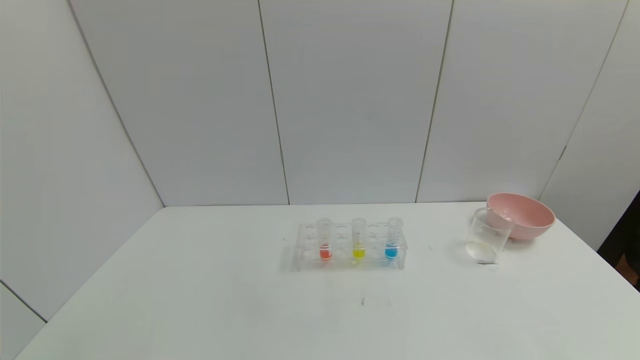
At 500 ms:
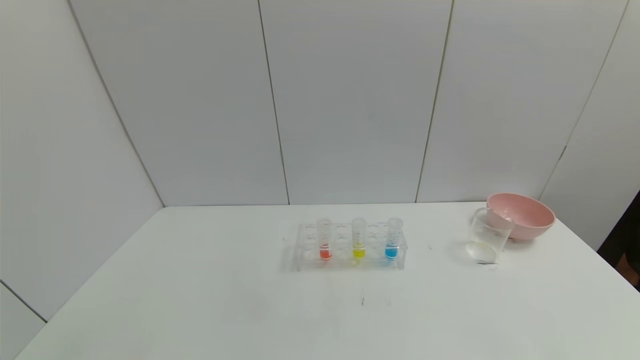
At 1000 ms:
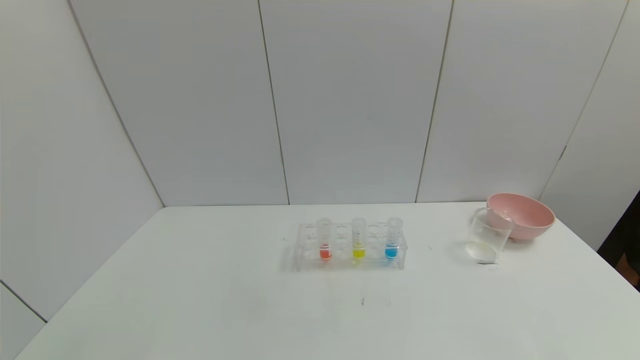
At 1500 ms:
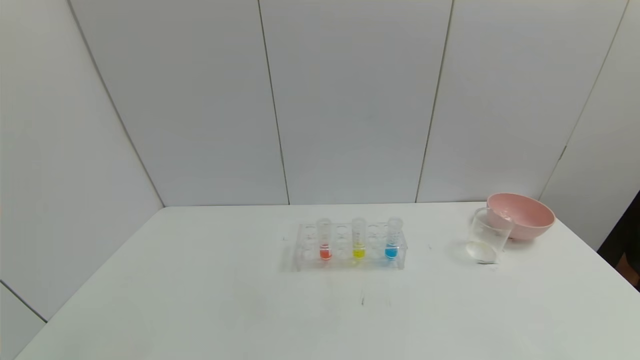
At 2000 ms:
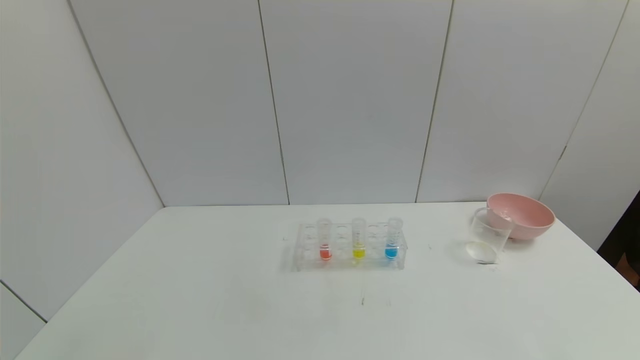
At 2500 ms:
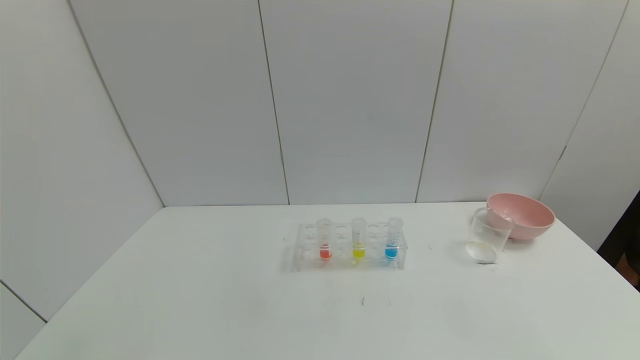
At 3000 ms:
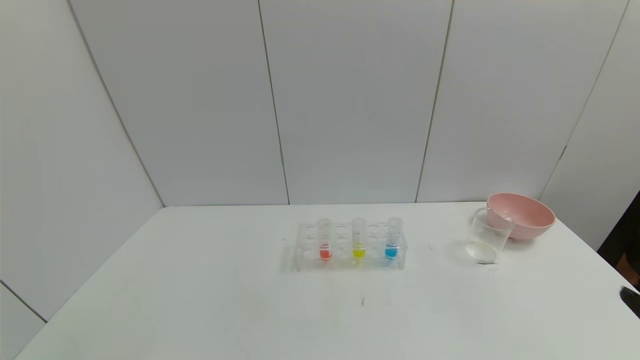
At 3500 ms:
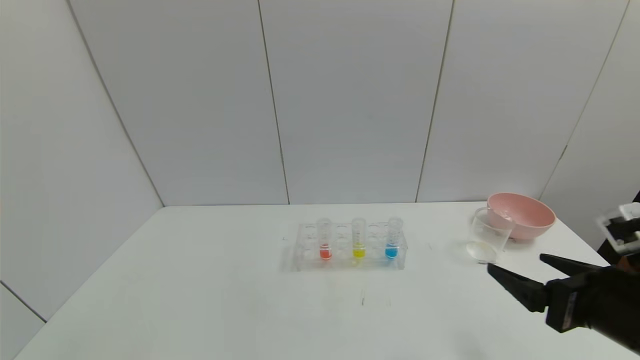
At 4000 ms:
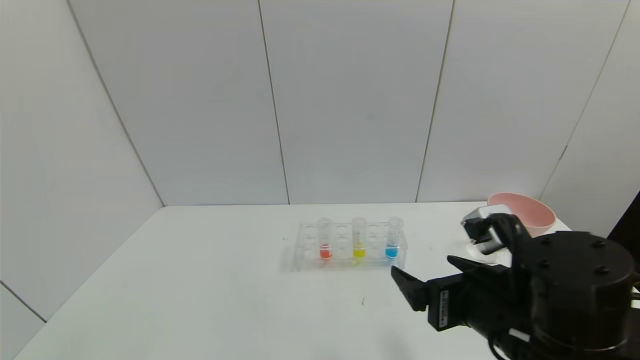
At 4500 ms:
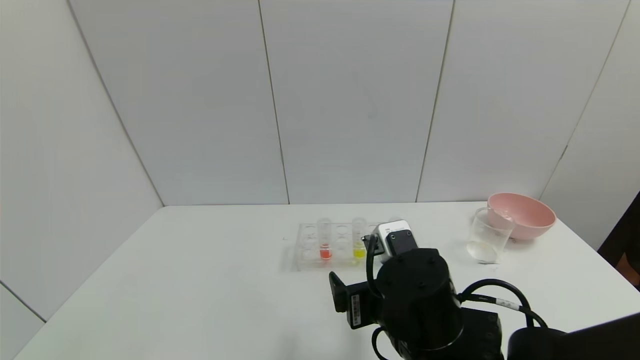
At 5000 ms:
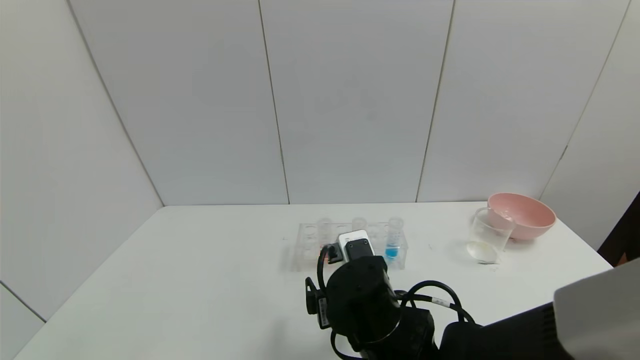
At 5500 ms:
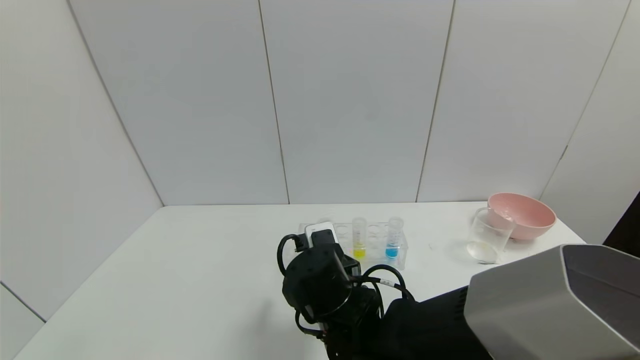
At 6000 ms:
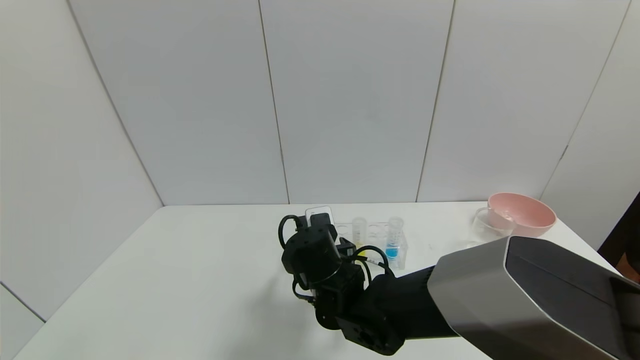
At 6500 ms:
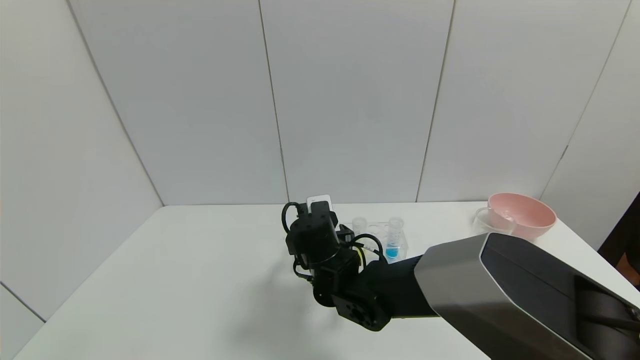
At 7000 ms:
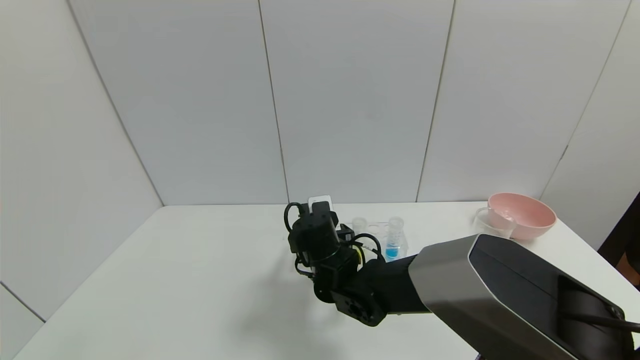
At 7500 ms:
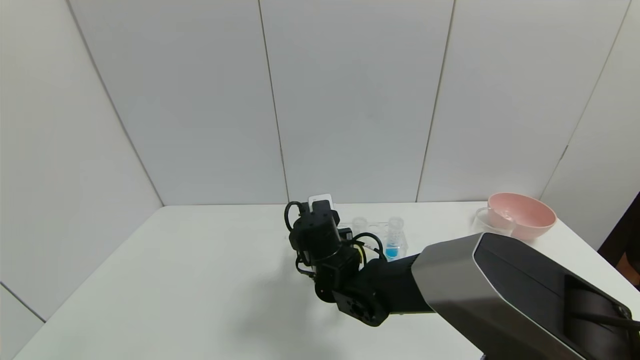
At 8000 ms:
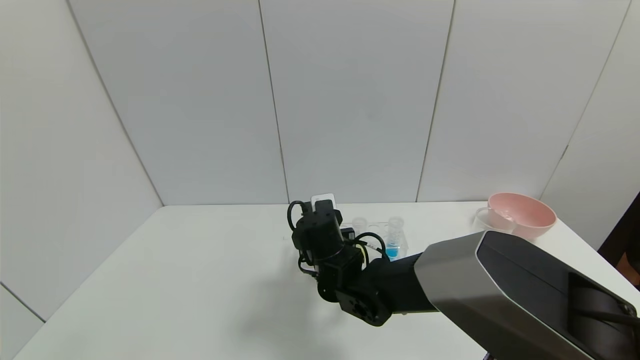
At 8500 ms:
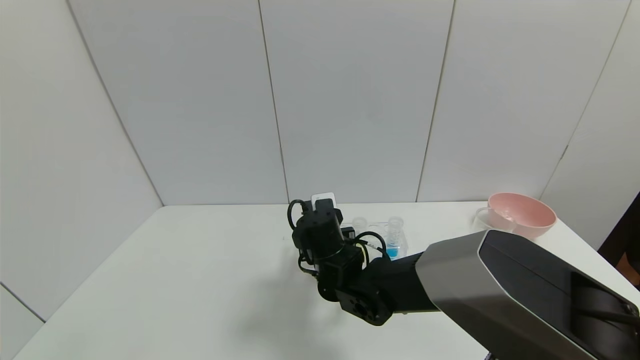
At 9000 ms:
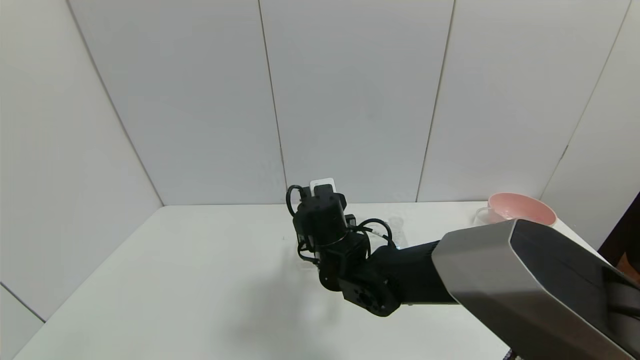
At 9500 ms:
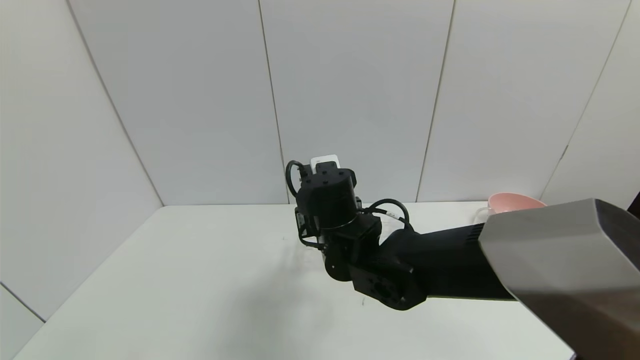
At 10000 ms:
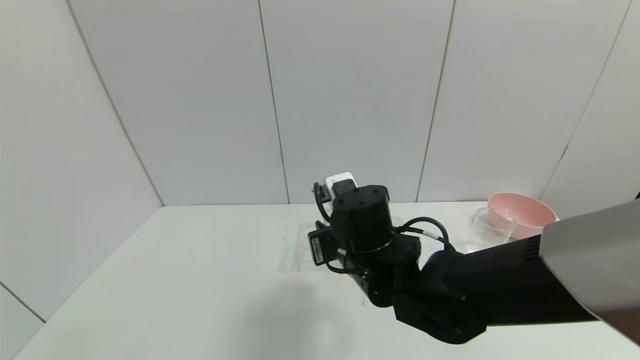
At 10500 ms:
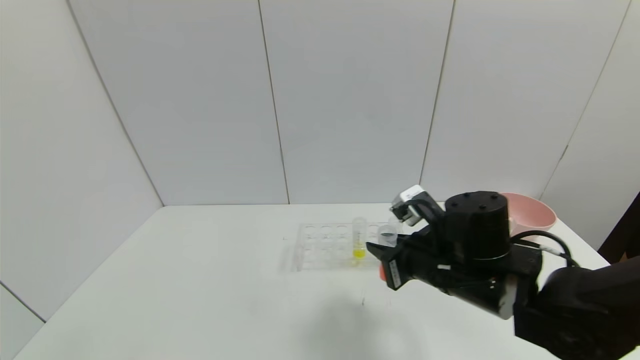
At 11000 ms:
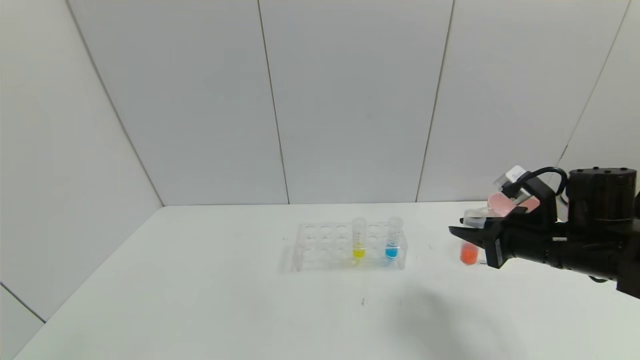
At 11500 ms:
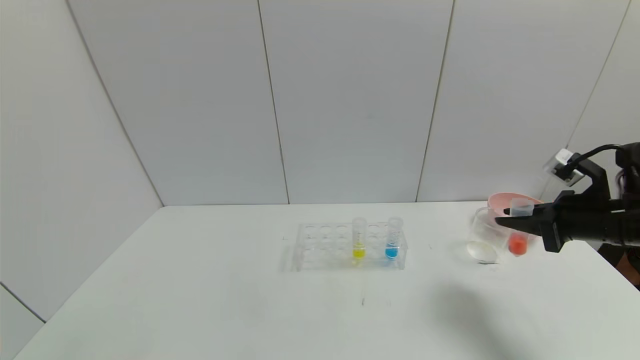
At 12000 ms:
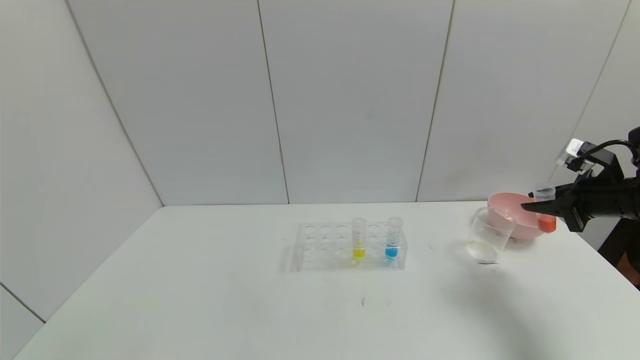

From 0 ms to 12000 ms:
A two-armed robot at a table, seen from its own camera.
Task of the whole recording: pick up the test tube with yellow pigment and the test tube with red pigment by grippers and pour them into the beaker.
Step, from 0 ms to 7500 ms: Grasp the red reagent with the right gripper.
From 0 ms to 2000 ms: The two grippers keep their place.
From 2000 ms to 4000 ms: The right gripper shifts approximately 30 cm forward, to the left and upward.
From 4000 ms to 6000 ms: The right gripper goes about 25 cm to the left, forward and downward.
From 6000 ms to 8000 ms: The right gripper closes its fingers.
From 8000 ms to 10000 ms: The right gripper shifts some 10 cm upward, backward and to the right.
From 10000 ms to 12000 ms: The right gripper goes approximately 40 cm to the right.

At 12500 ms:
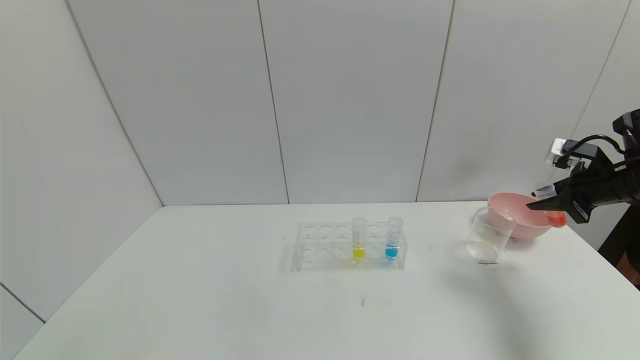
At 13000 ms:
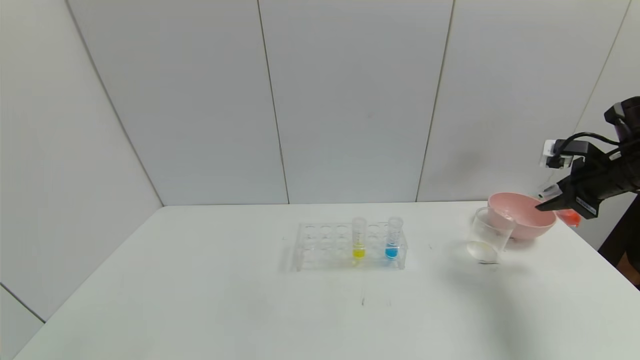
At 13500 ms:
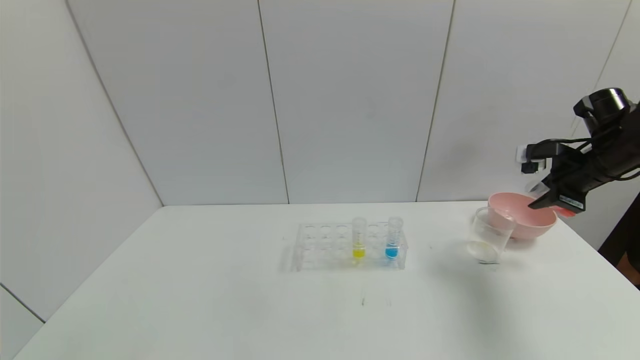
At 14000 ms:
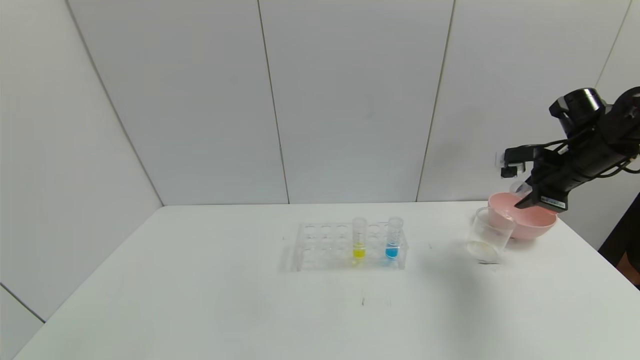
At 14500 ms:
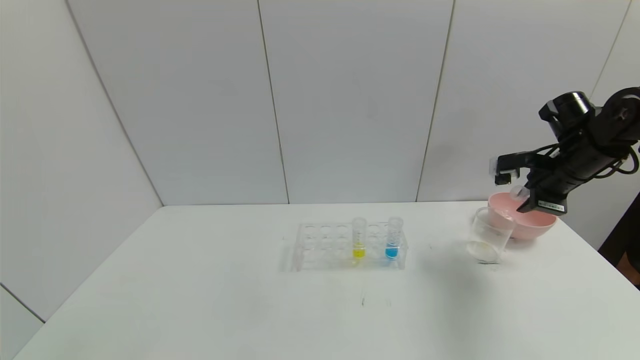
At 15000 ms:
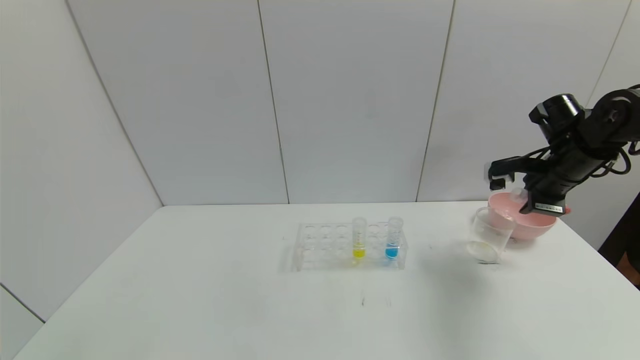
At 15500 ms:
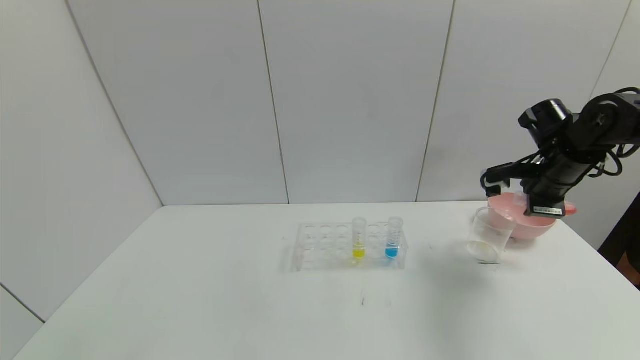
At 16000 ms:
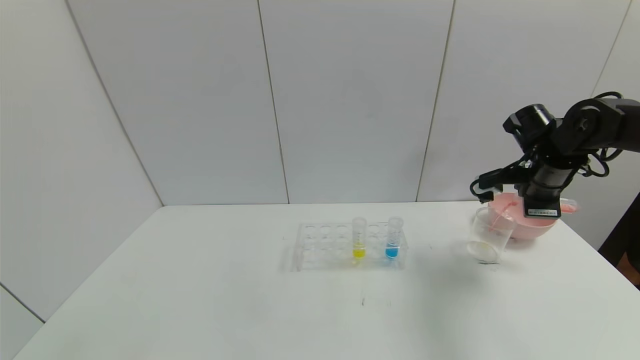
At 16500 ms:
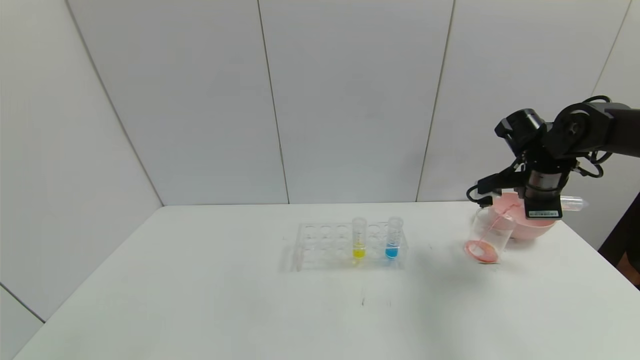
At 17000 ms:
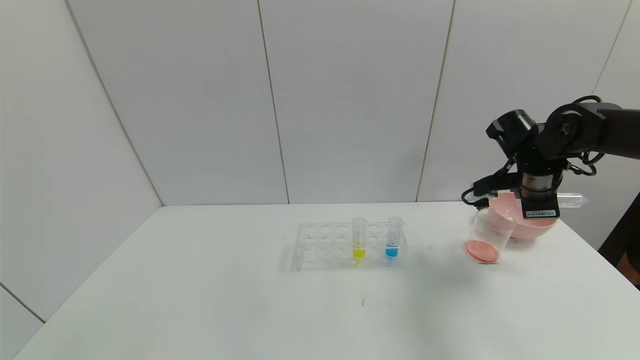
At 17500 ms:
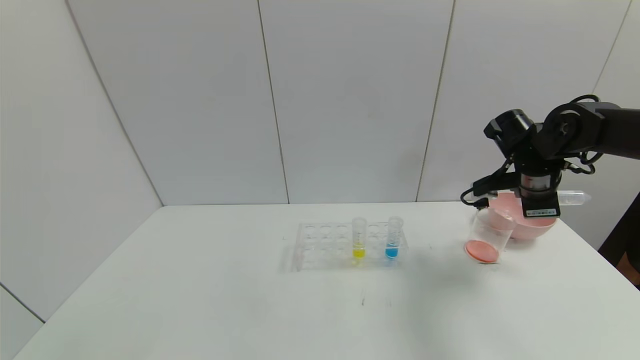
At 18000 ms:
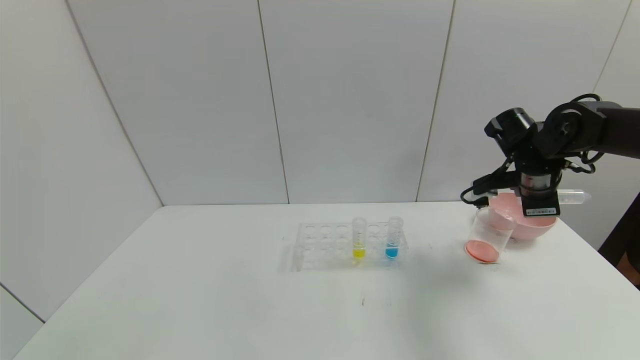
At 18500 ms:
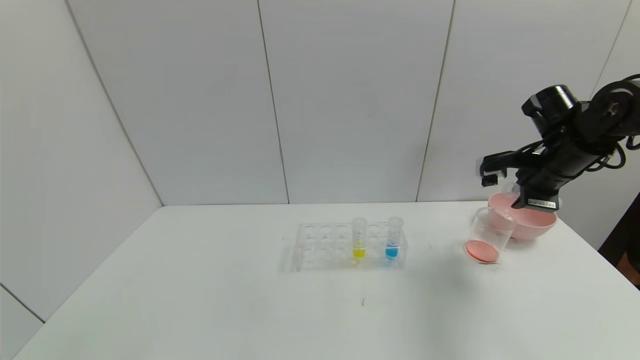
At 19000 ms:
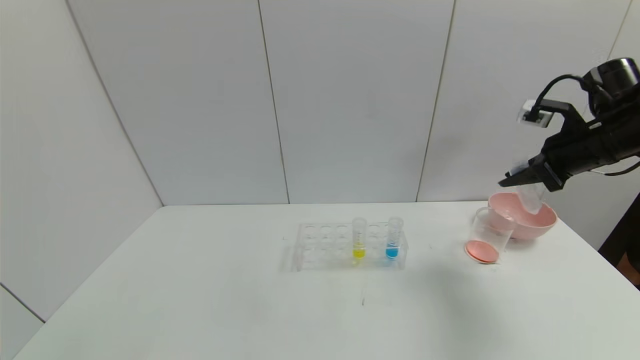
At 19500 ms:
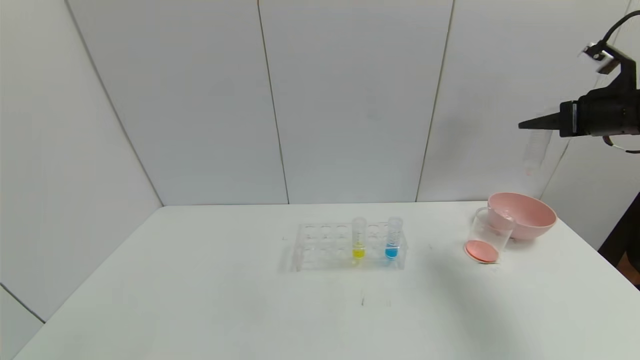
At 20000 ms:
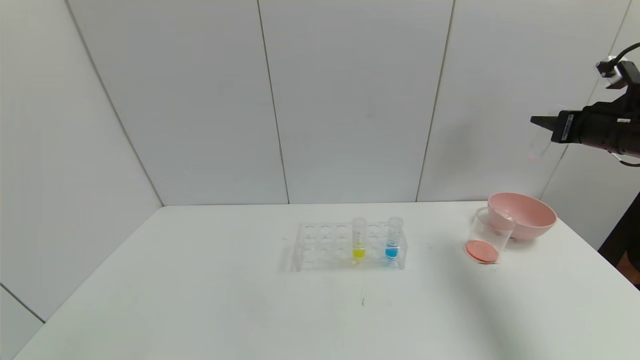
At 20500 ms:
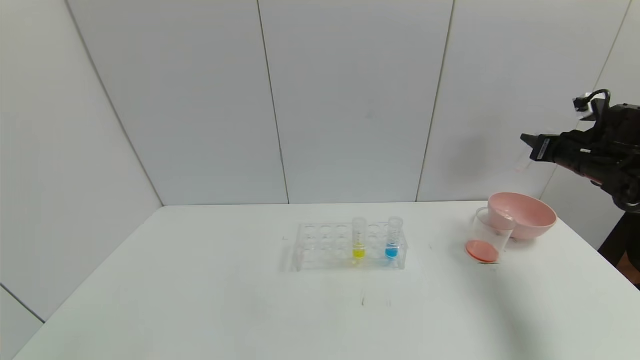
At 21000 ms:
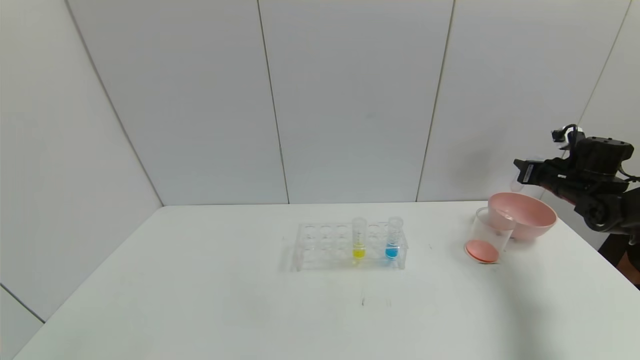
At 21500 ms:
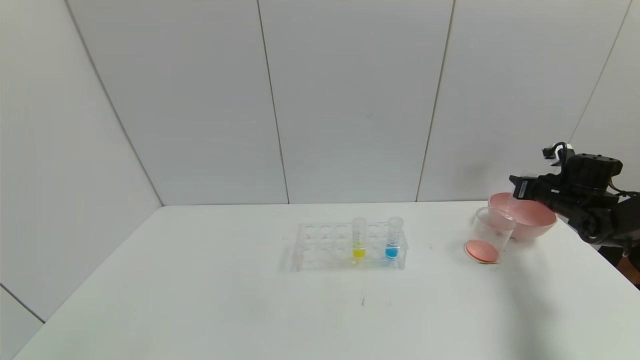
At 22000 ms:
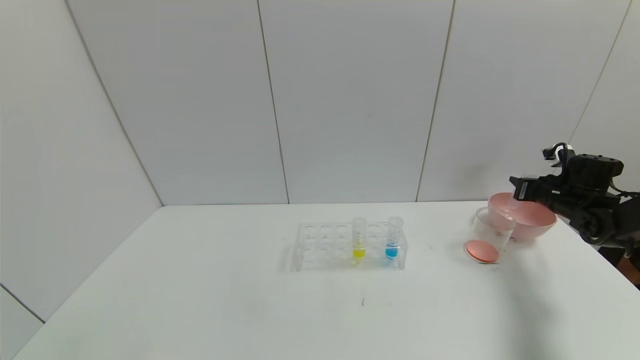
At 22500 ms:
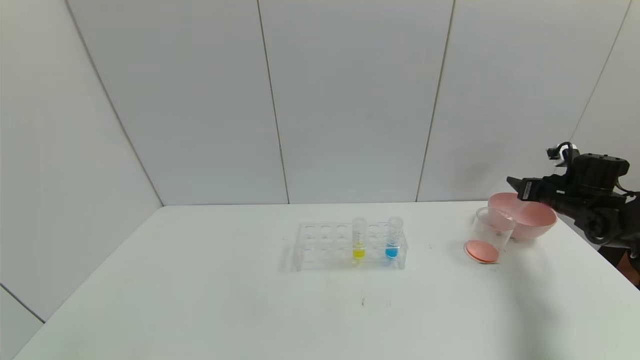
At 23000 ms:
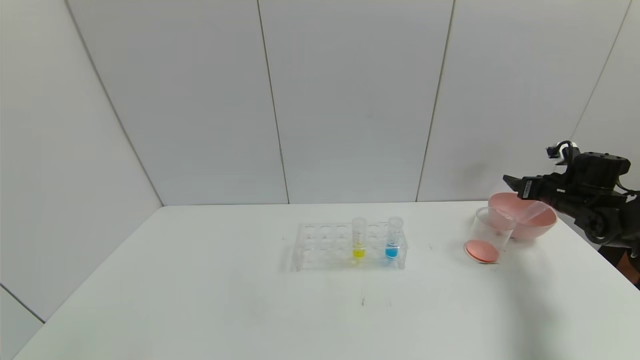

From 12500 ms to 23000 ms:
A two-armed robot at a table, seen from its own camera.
Task of the whole recording: pick up the test tube with yellow pigment and the test tube with red pigment by grippers and pour them into the beaker.
Step, from 12500 ms to 17500 ms: Pour the red reagent into the graduated cylinder with the right gripper.
Step, from 18000 ms to 22500 ms: Place the test tube into the bowl with the right gripper.
From 12500 ms to 14500 ms: The right gripper shifts some 5 cm to the left.
From 16500 ms to 19000 ms: The right gripper heads upward, covering about 5 cm.
From 19000 ms to 21000 ms: The right gripper heads downward, forward and to the right, covering approximately 15 cm.
From 21000 ms to 23000 ms: The right gripper opens its fingers.
